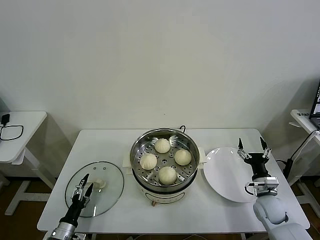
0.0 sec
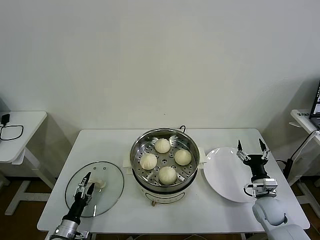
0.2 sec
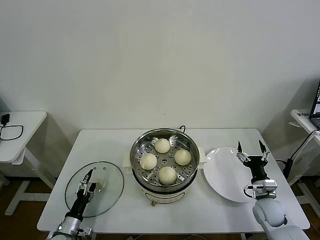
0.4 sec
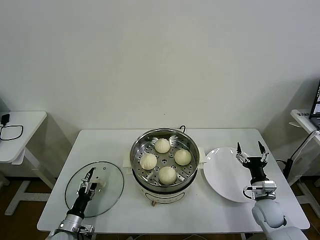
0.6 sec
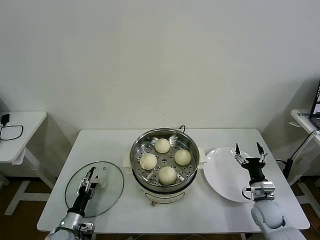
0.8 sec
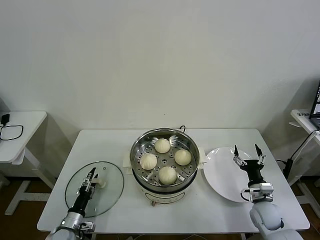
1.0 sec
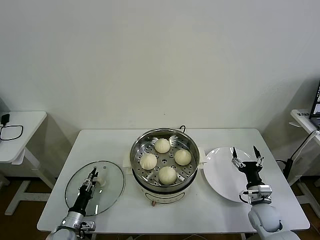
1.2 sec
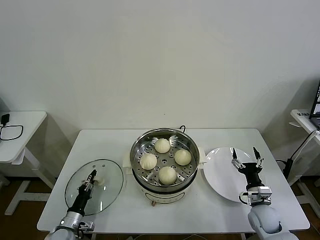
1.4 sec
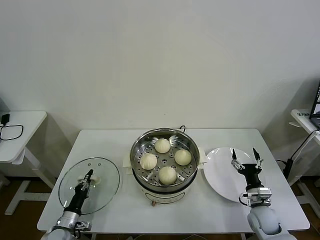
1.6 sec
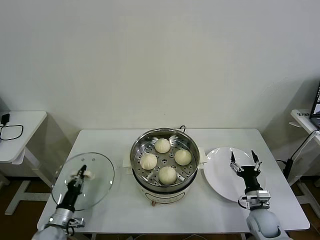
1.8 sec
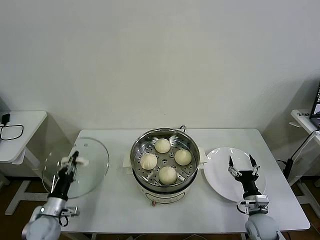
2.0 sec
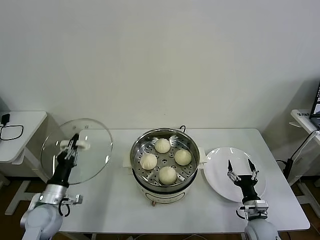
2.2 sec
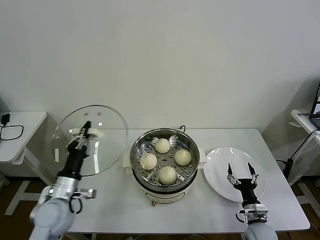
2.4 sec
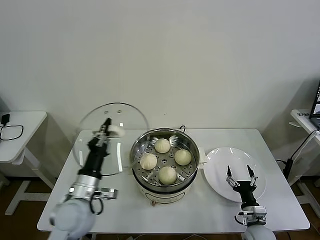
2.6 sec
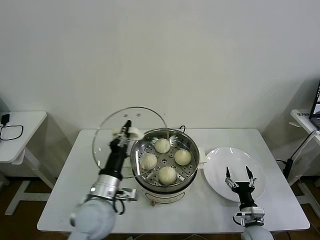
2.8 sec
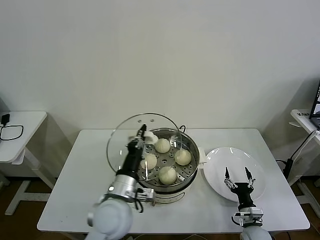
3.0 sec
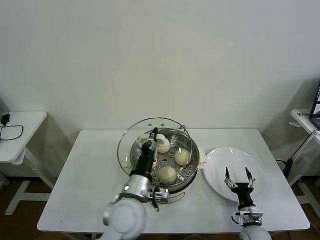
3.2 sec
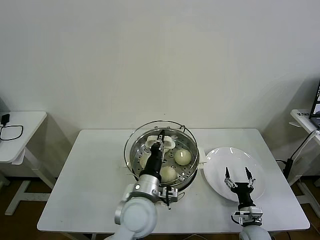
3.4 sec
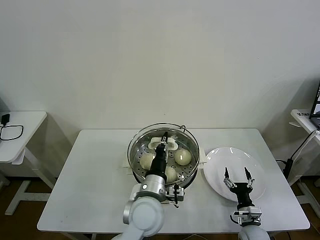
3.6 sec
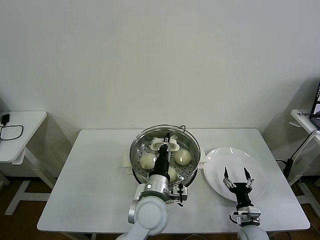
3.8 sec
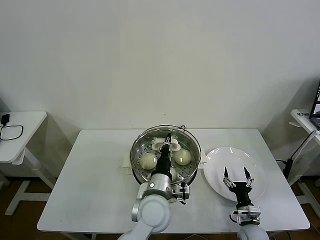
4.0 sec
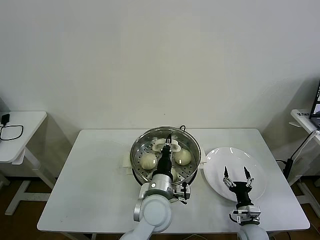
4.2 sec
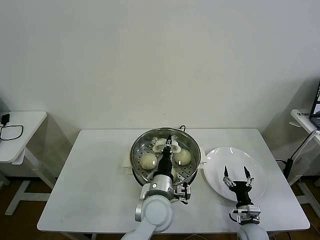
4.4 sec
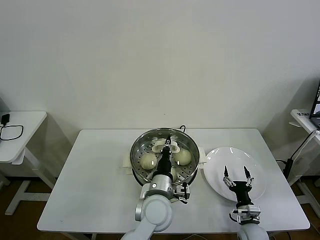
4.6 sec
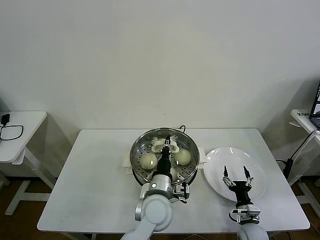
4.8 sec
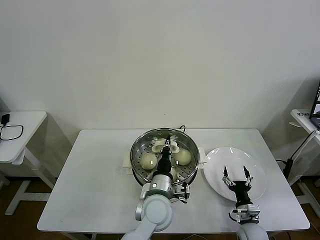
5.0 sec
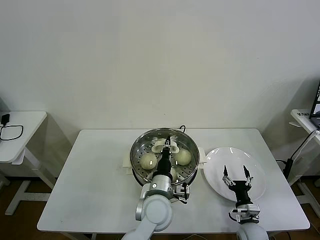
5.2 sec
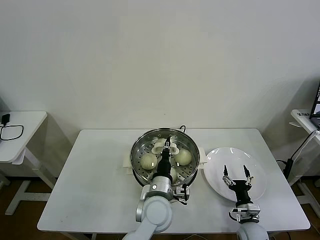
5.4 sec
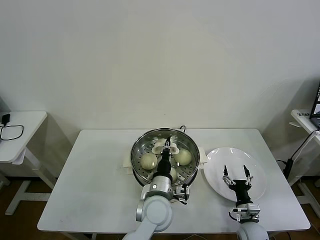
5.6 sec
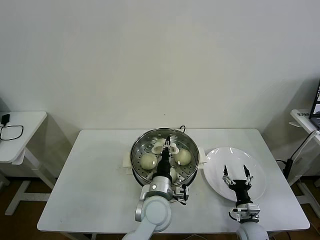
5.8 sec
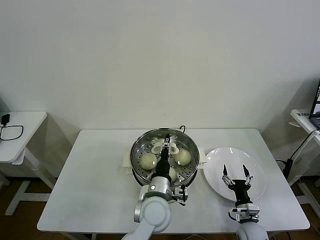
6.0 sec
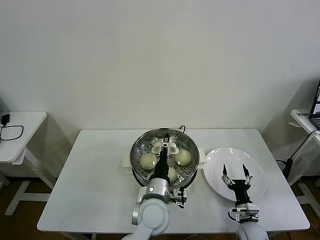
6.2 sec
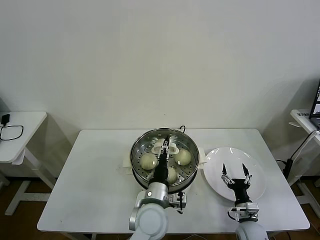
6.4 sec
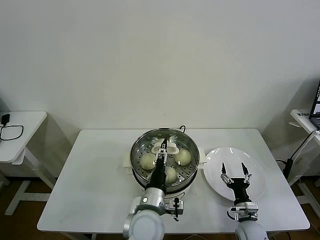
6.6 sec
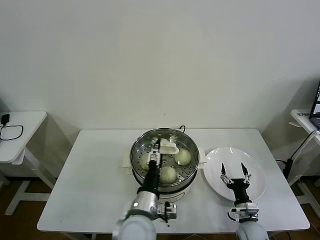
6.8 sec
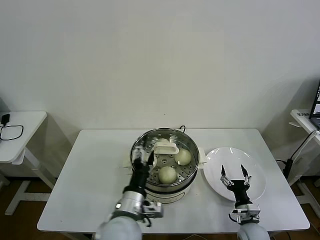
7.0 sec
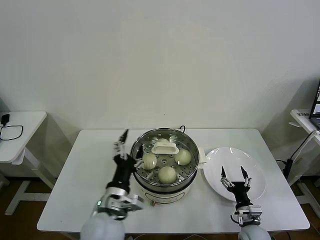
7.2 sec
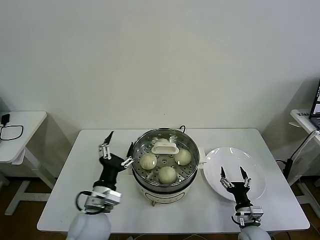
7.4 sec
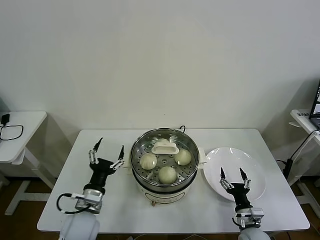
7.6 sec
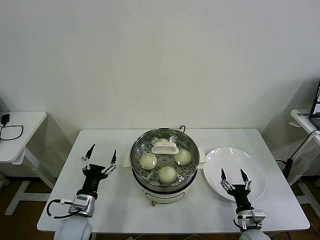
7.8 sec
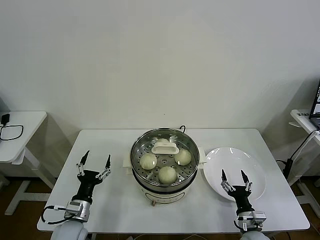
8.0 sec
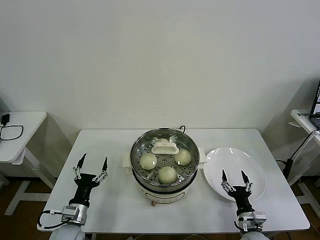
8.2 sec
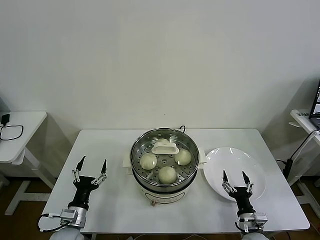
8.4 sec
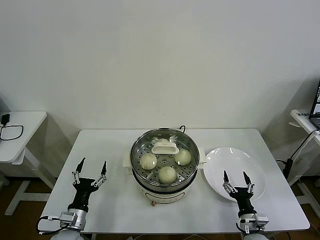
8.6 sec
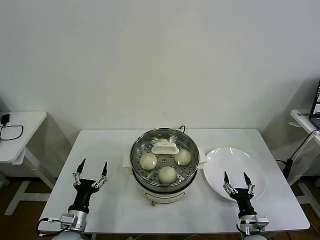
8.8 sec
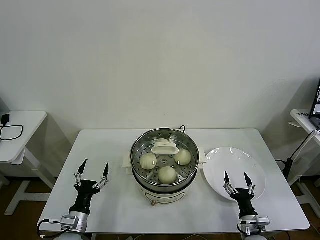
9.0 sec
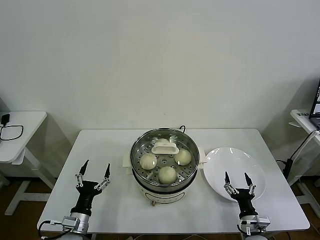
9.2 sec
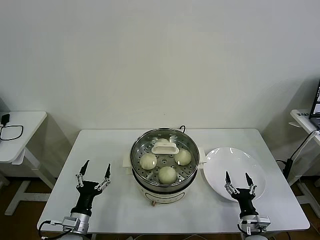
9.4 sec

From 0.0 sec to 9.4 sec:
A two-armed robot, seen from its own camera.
Task of the whole recording: take steamed baozi put them in steamer then cover it.
Step, from 1.8 sec to 6.0 sec: Place the pot lid on the steamer with left gripper.
From 0.0 sec to 1.6 sec: The left gripper closes up.
From 1.6 sec to 3.2 sec: The left gripper travels to the right and upward by approximately 35 cm; the right gripper heads downward and backward, covering approximately 10 cm.
From 3.2 sec to 4.8 sec: The left gripper travels to the right by about 10 cm.
From 4.8 sec to 6.2 sec: The left gripper opens up.
From 6.2 sec to 7.8 sec: The left gripper is displaced to the left by about 25 cm, and opens.
From 7.8 sec to 9.4 sec: The left gripper moves downward, about 5 cm.

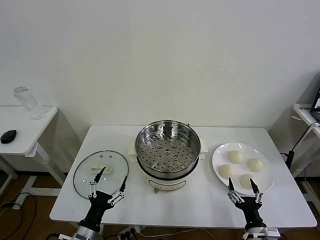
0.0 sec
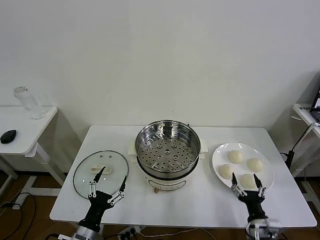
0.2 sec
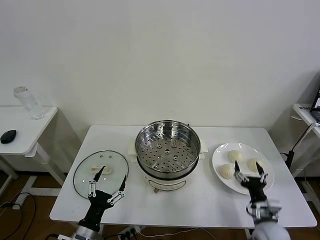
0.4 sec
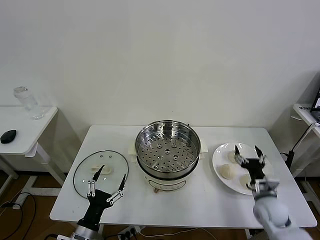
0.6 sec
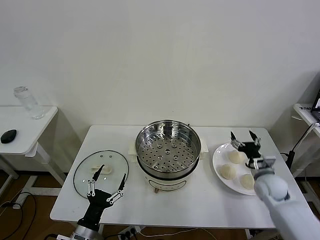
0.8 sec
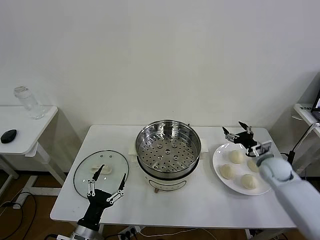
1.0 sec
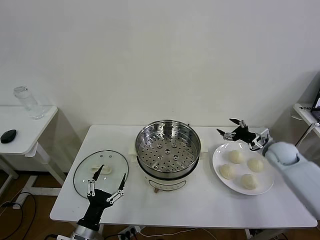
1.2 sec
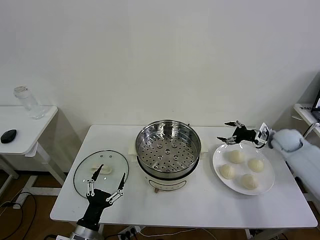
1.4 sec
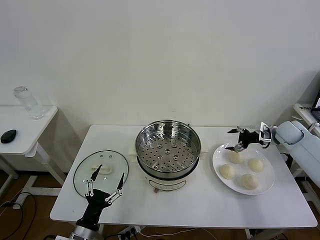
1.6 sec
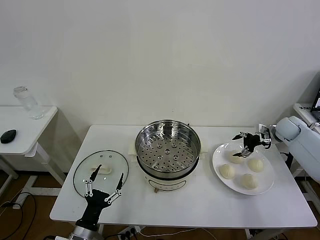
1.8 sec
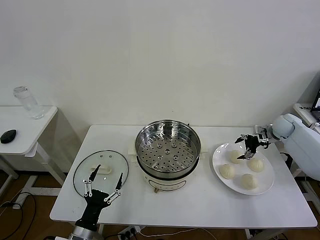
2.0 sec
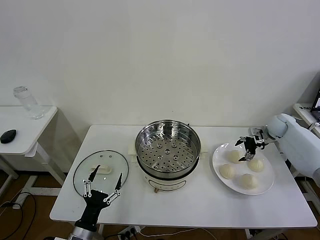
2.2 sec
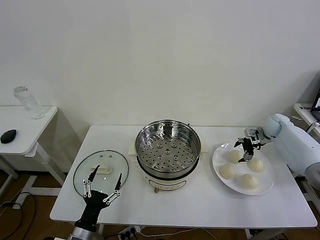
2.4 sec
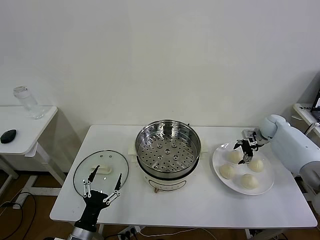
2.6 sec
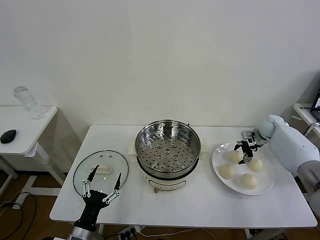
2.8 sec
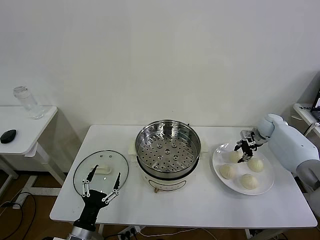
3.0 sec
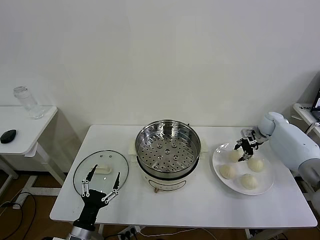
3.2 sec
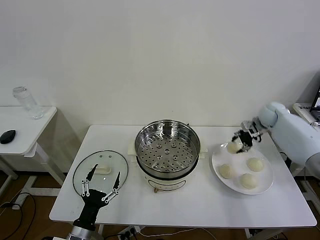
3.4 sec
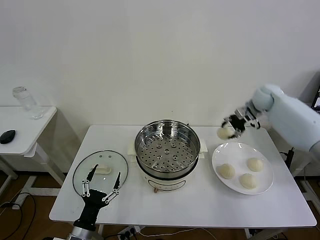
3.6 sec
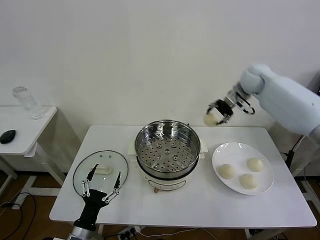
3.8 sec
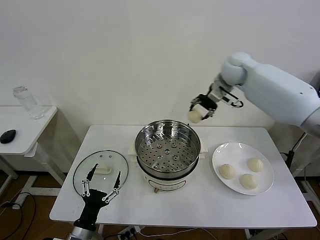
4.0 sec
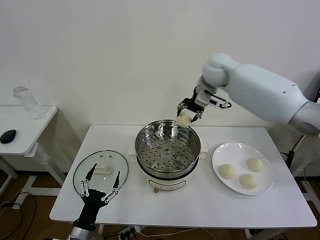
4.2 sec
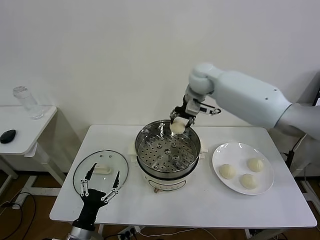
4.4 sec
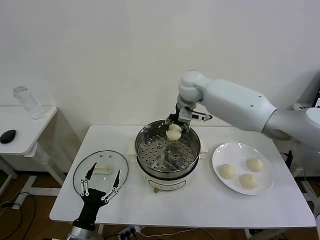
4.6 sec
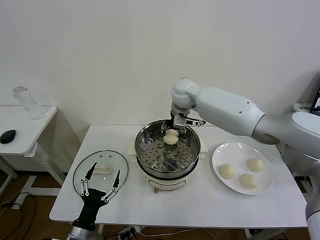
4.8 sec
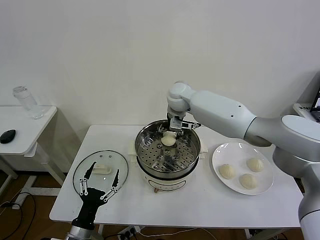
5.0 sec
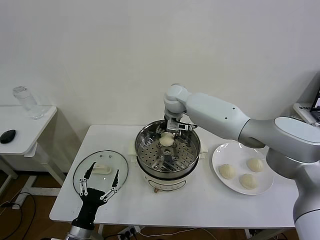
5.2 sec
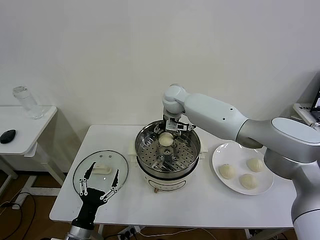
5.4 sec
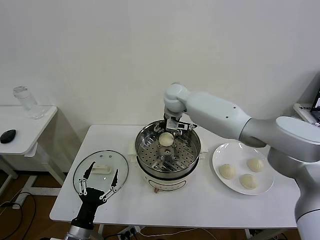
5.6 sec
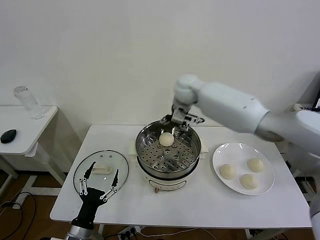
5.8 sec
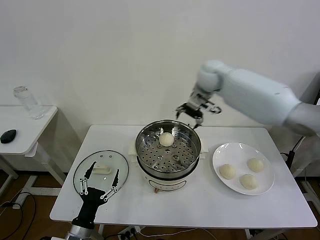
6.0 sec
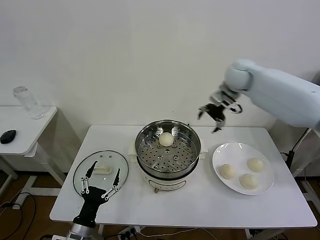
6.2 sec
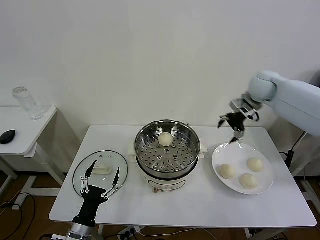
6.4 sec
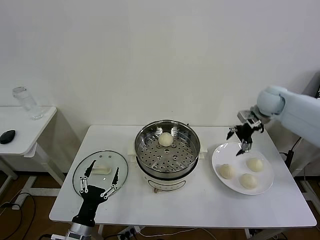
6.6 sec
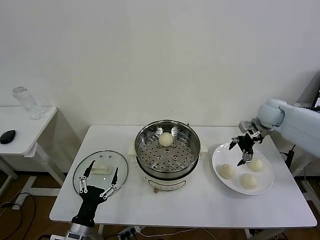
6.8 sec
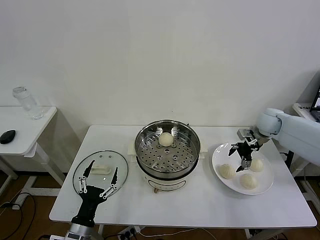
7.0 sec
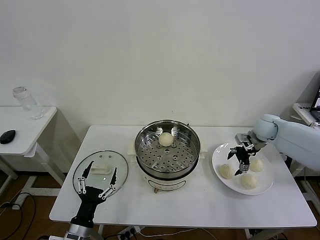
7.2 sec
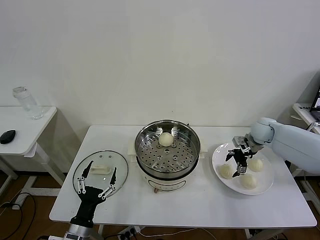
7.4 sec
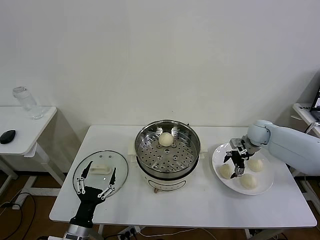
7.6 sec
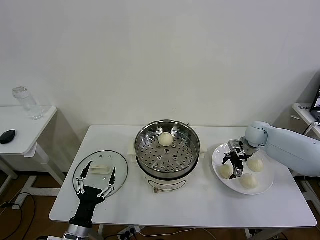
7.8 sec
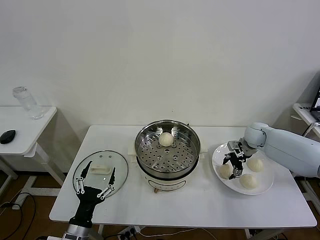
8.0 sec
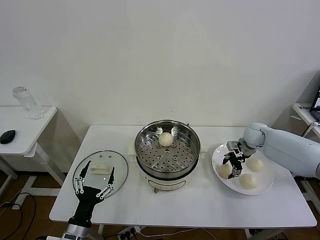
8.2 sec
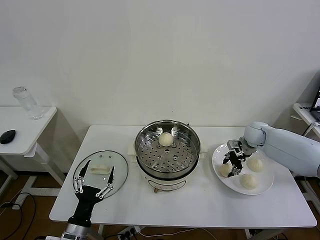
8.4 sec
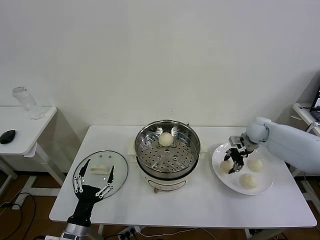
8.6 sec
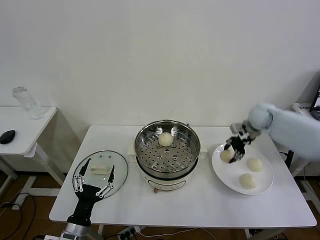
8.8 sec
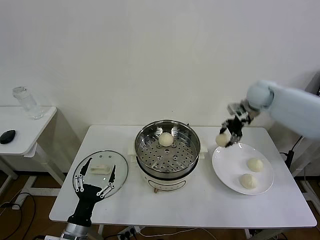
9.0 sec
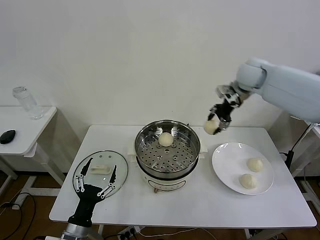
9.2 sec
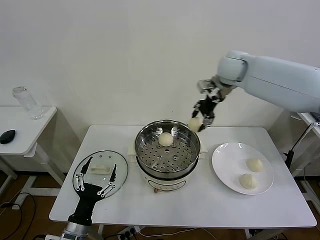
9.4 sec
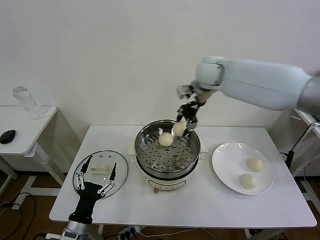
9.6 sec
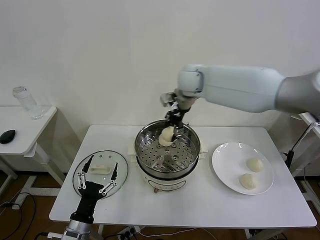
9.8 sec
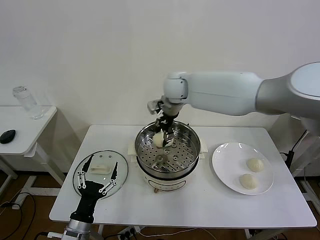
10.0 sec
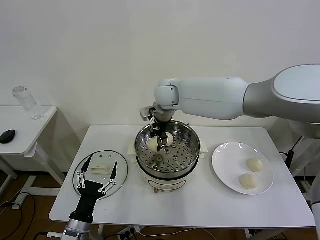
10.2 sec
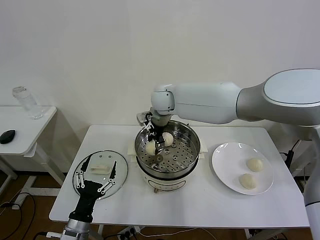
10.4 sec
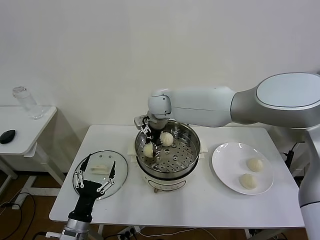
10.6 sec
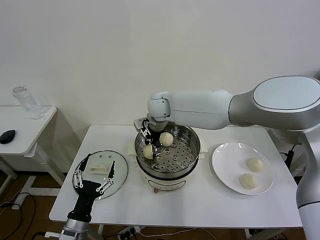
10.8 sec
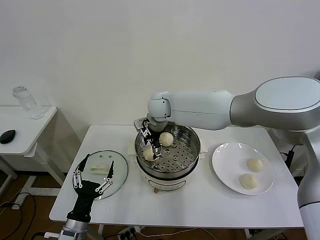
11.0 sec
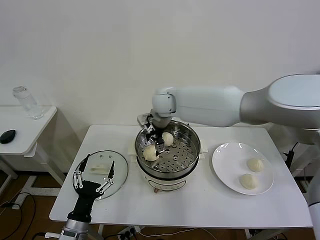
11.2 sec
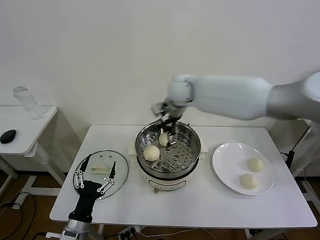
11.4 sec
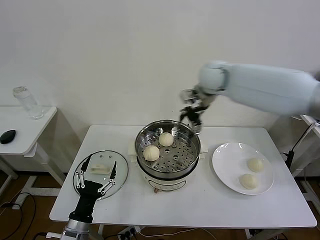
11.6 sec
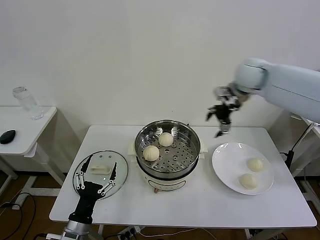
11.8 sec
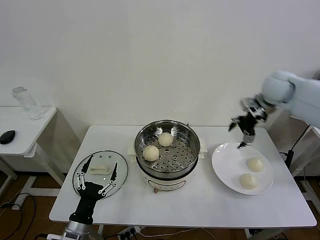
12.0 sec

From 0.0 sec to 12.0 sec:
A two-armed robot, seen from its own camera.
Task of the whole recording: take steamed baozi put them in steamer then cover it.
Step, from 0.0 sec to 3.0 sec: Grasp the baozi in the plate with right gripper.
Step, from 3.2 sec to 5.6 sec: Place the baozi on the steamer with right gripper.
Step, from 5.8 sec to 8.2 sec: Grasp the baozi in the plate with right gripper.
Step, from 8.4 sec to 11.0 sec: Place the baozi on the steamer with right gripper.
From 1.6 sec to 3.0 sec: The right gripper moves forward, roughly 5 cm, and closes its fingers.
From 3.0 sec to 4.4 sec: The right gripper shifts approximately 40 cm to the left and upward.
From 4.4 sec to 6.0 sec: The right gripper is displaced to the right by some 10 cm, and opens.
From 6.0 sec to 7.6 sec: The right gripper is displaced downward and to the right by some 30 cm.
From 7.6 sec to 9.0 sec: The right gripper is displaced upward by roughly 20 cm, and closes its fingers.
From 9.0 sec to 10.4 sec: The right gripper heads to the left, covering some 30 cm.
From 10.4 sec to 12.0 sec: The right gripper travels to the right by approximately 40 cm, and opens its fingers.
